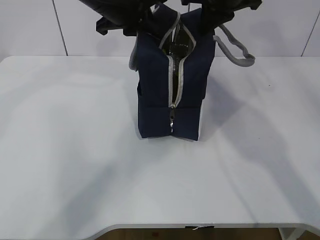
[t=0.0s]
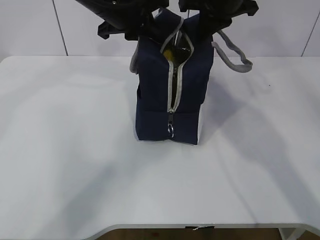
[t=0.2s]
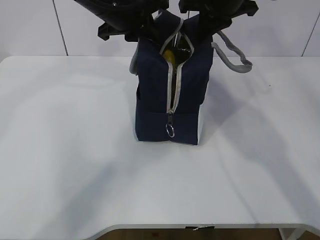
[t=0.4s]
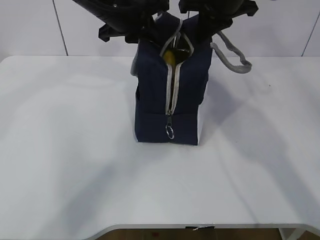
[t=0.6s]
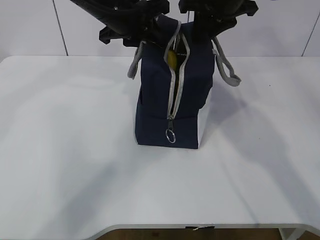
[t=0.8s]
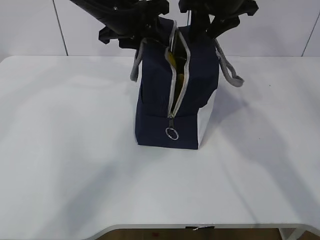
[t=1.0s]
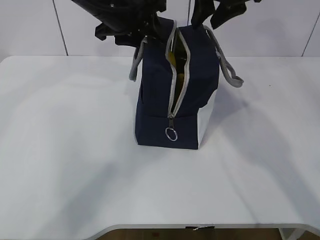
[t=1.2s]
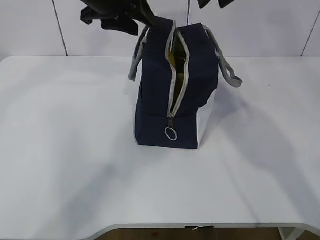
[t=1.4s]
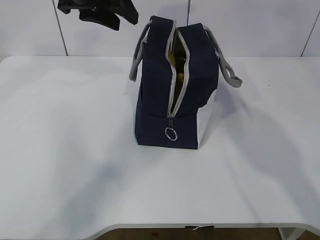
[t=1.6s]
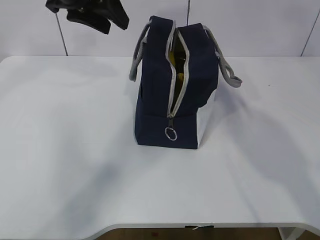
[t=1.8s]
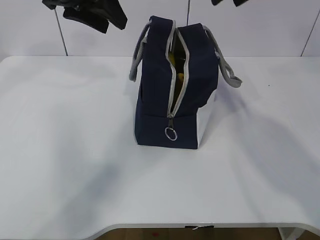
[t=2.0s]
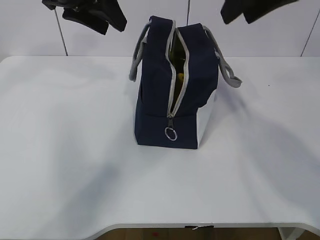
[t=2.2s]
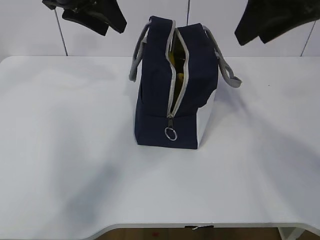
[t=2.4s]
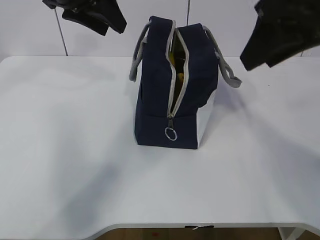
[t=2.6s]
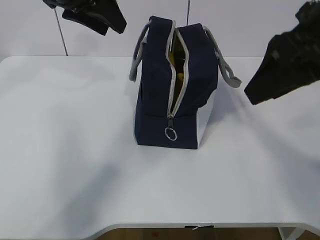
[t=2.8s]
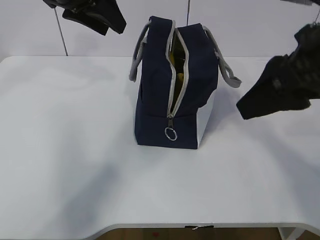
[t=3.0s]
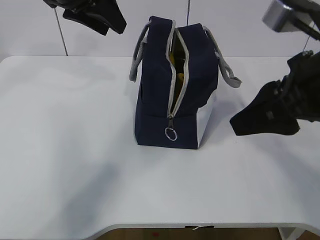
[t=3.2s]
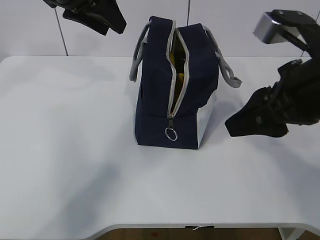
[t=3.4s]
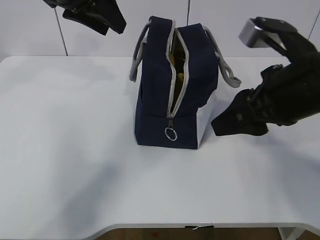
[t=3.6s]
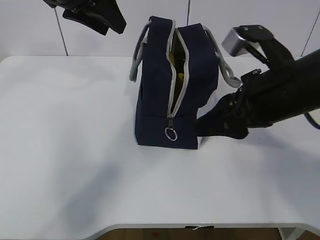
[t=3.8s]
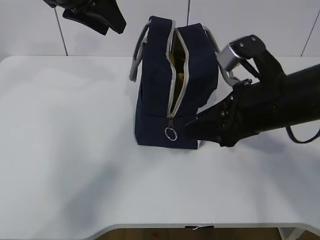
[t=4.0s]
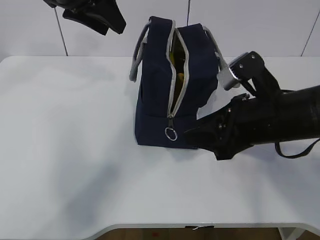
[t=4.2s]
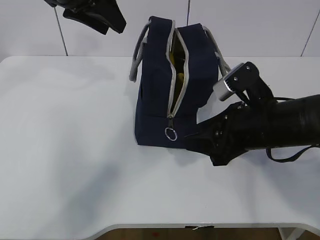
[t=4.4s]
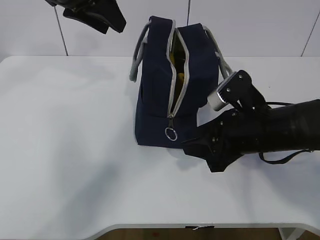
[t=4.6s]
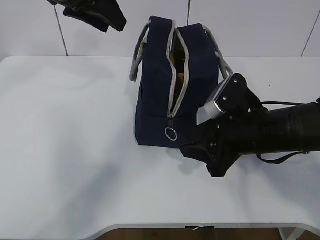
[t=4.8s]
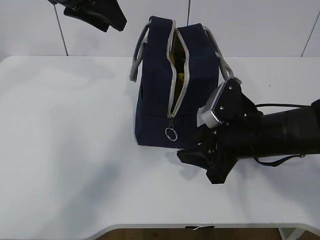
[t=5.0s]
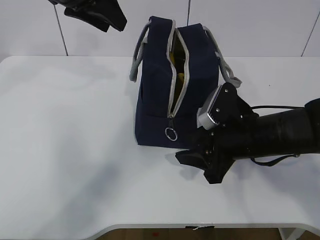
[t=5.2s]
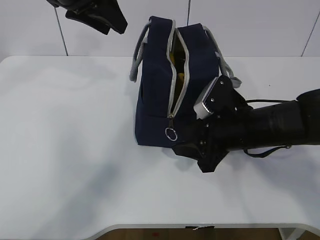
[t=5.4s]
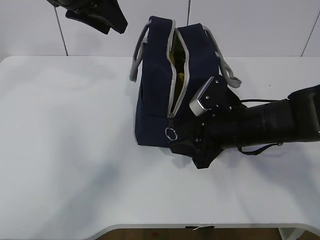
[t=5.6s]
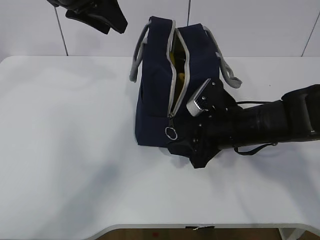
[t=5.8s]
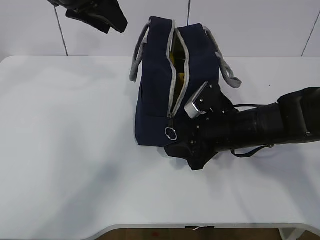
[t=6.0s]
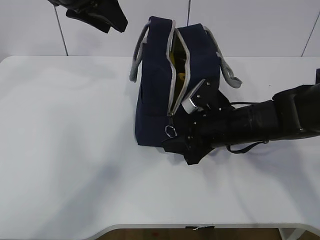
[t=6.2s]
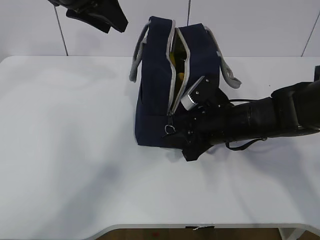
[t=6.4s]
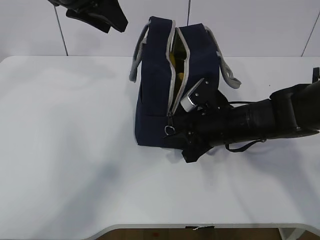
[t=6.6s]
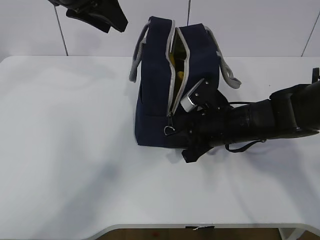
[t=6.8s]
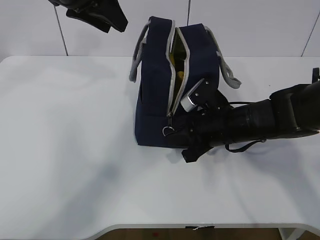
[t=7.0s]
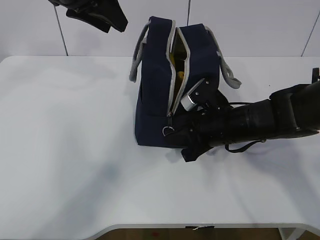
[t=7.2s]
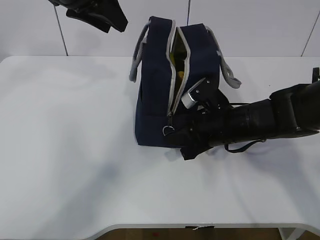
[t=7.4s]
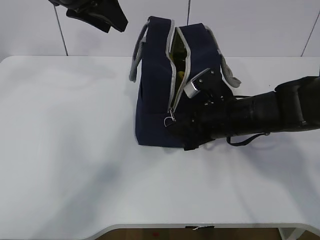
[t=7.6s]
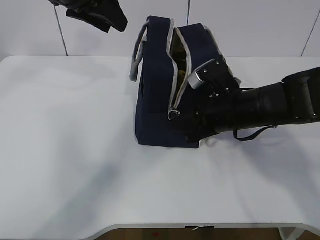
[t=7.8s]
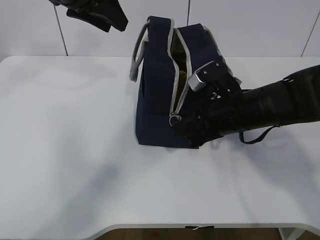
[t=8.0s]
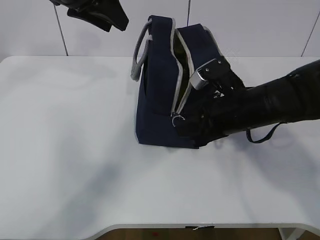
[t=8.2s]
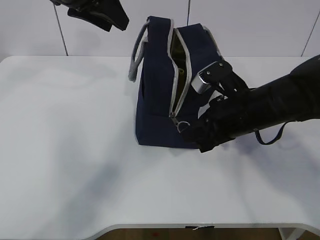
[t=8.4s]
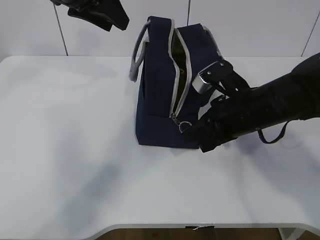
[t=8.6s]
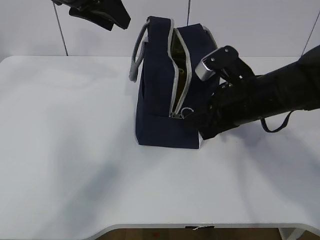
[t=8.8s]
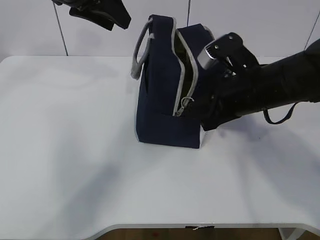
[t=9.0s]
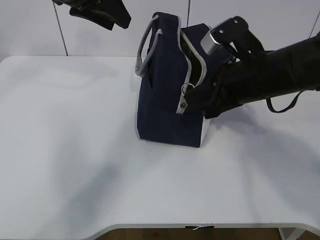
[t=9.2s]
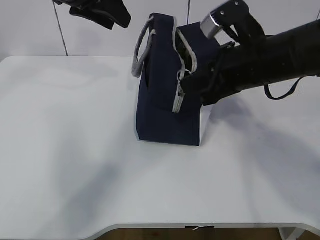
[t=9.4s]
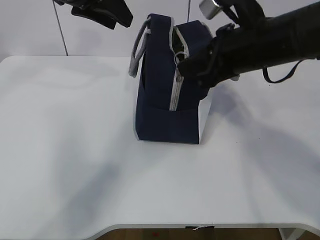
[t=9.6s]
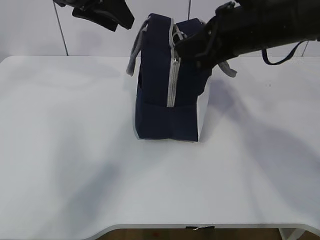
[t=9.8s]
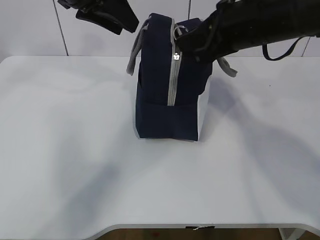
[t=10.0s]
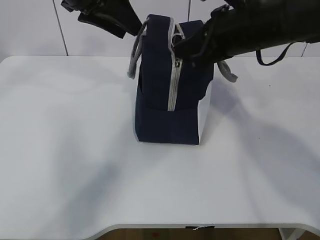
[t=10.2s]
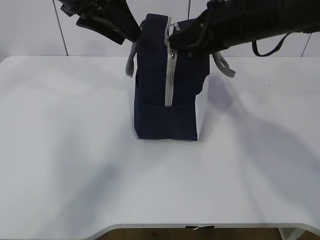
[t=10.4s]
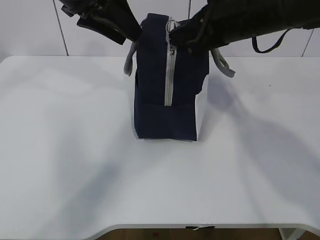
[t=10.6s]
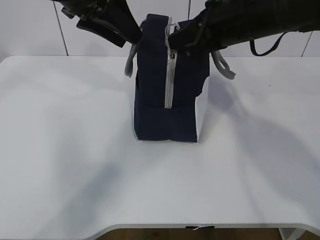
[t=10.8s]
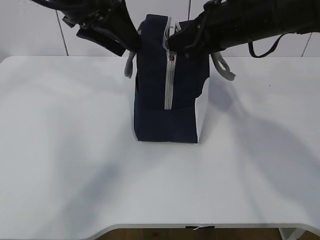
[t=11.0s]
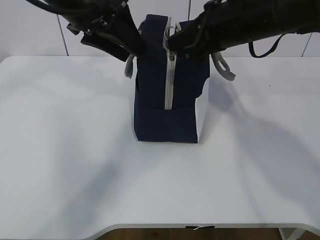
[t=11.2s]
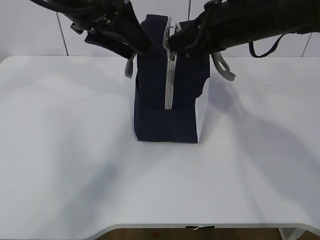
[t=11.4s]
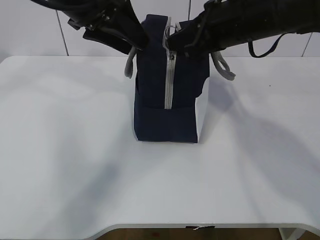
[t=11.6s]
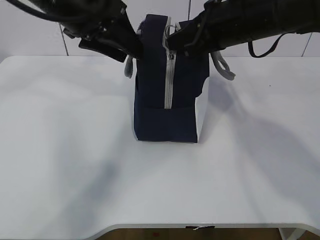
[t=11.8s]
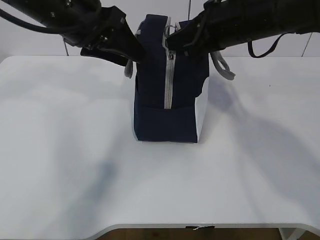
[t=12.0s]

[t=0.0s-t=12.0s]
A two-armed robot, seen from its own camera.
t=0.0s to t=1.6s: The right gripper heads upward, covering approximately 5 cm, and opens up; the left gripper ends up about 5 cm from where it was, and opens its fingers.
t=1.6s to t=3.0s: The right gripper shifts approximately 20 cm backward and downward.
t=3.0s to t=4.4s: The right gripper shifts about 15 cm downward.
t=4.4s to t=6.0s: The right gripper goes roughly 10 cm downward and forward.
t=6.0s to t=7.6s: The right gripper closes its fingers.
t=7.6s to t=9.0s: The right gripper is displaced upward by about 5 cm.
t=9.0s to t=10.4s: The right gripper is displaced upward by some 10 cm.
t=10.4s to t=12.0s: The grippers make only small movements.

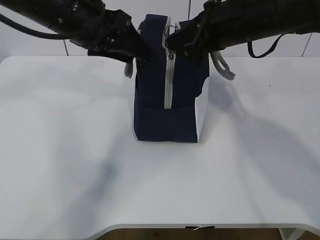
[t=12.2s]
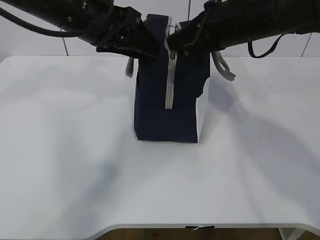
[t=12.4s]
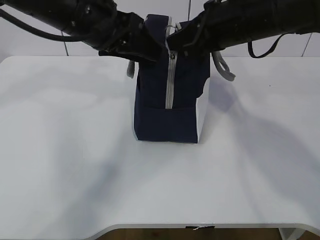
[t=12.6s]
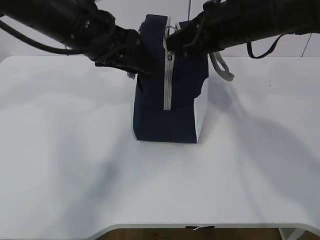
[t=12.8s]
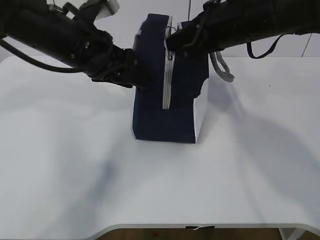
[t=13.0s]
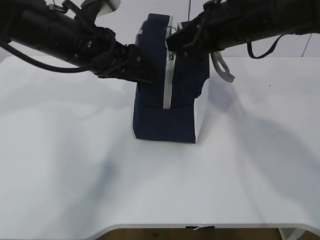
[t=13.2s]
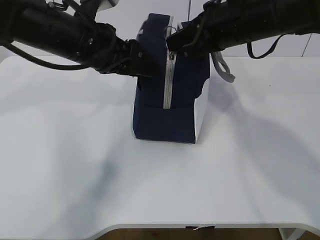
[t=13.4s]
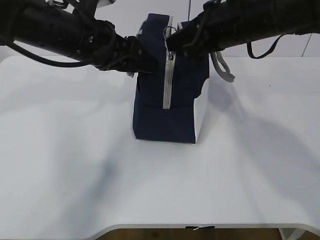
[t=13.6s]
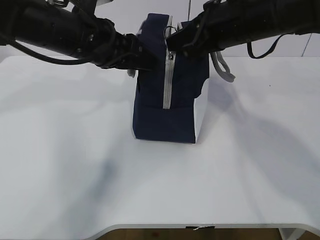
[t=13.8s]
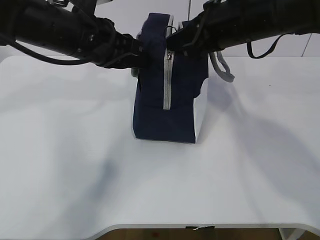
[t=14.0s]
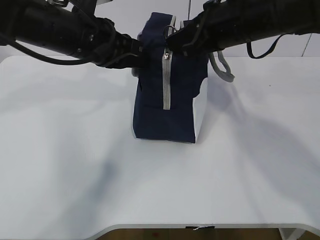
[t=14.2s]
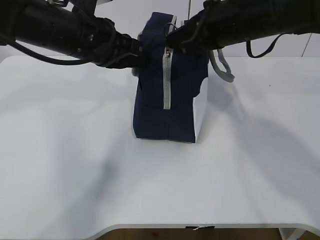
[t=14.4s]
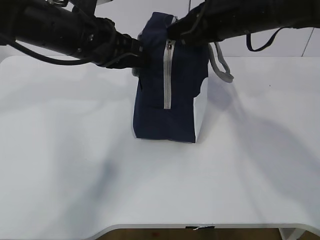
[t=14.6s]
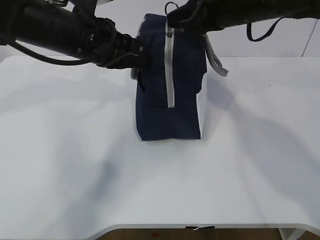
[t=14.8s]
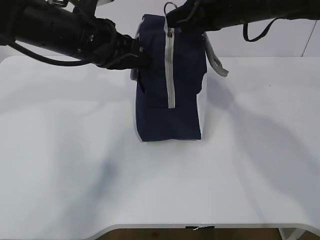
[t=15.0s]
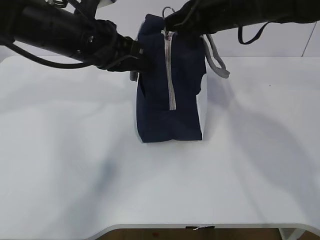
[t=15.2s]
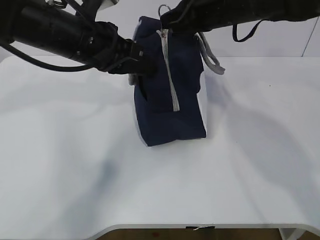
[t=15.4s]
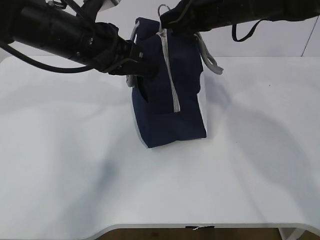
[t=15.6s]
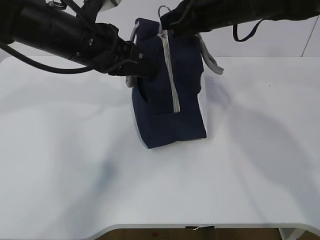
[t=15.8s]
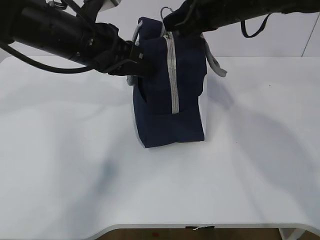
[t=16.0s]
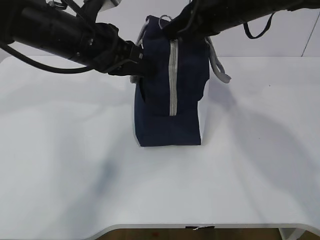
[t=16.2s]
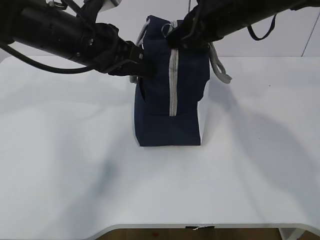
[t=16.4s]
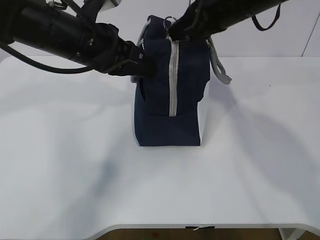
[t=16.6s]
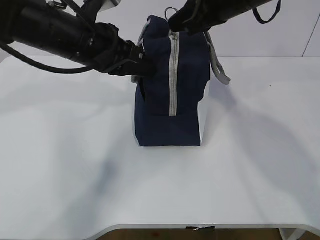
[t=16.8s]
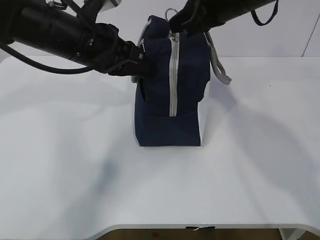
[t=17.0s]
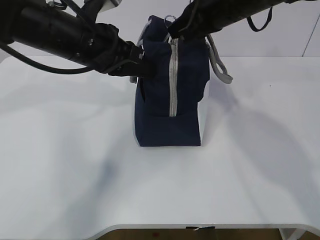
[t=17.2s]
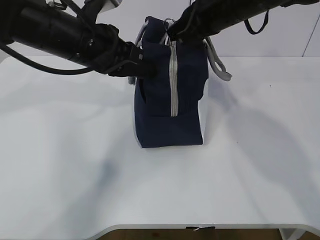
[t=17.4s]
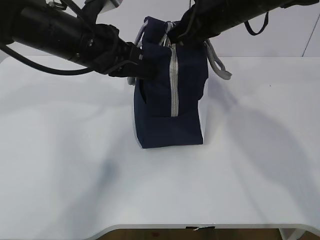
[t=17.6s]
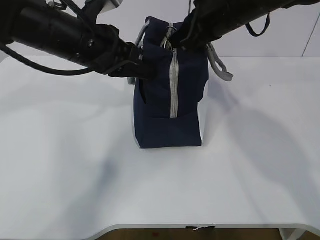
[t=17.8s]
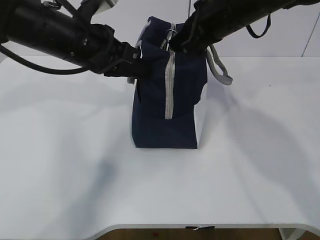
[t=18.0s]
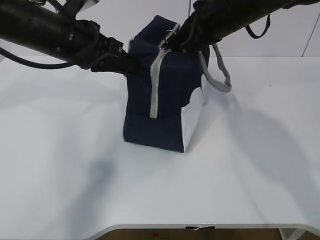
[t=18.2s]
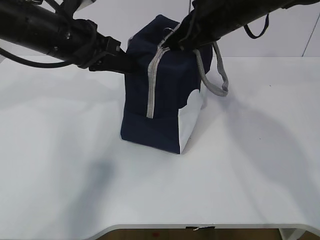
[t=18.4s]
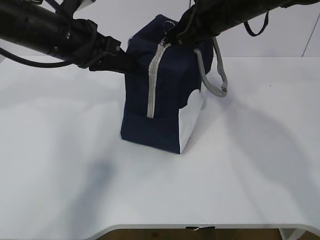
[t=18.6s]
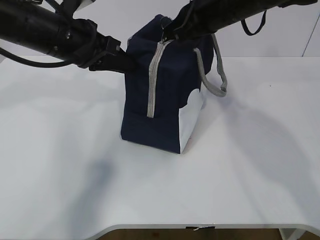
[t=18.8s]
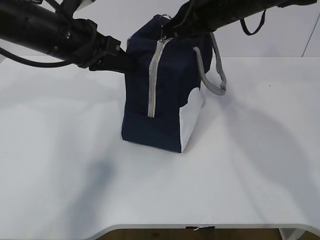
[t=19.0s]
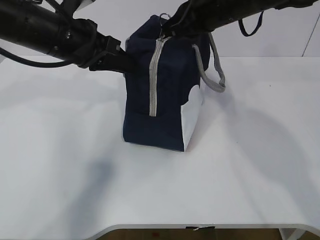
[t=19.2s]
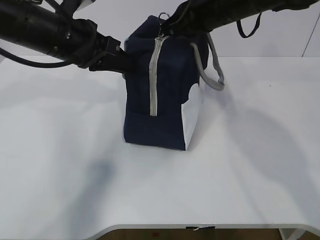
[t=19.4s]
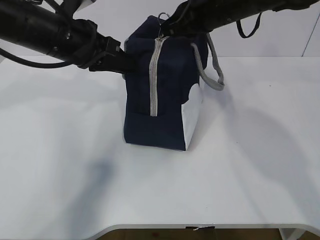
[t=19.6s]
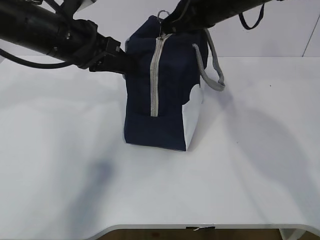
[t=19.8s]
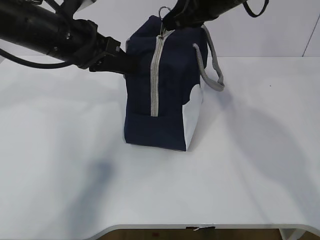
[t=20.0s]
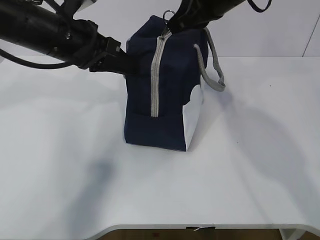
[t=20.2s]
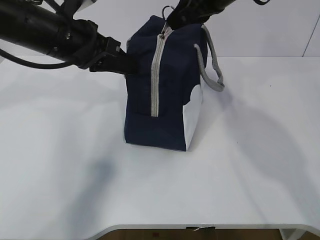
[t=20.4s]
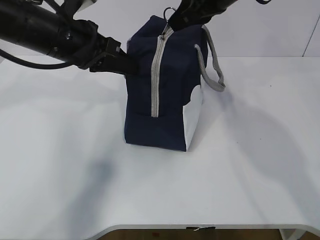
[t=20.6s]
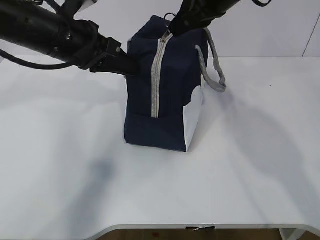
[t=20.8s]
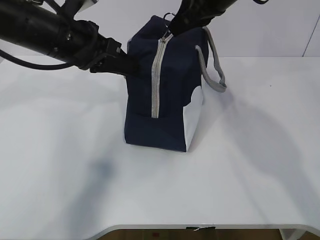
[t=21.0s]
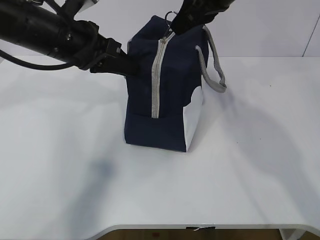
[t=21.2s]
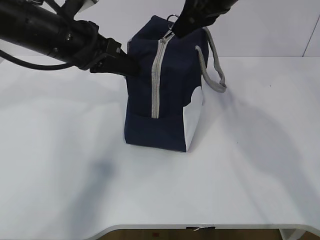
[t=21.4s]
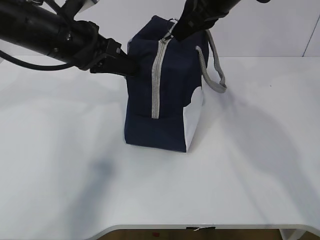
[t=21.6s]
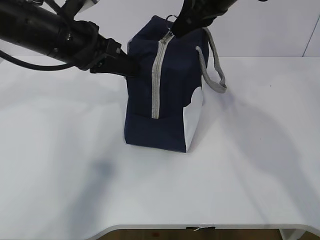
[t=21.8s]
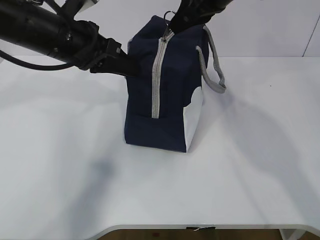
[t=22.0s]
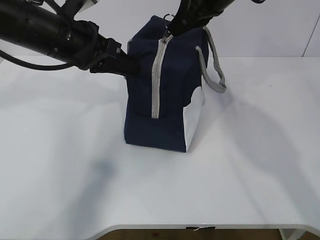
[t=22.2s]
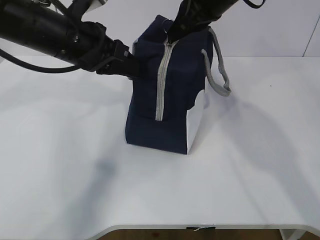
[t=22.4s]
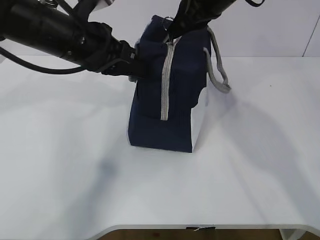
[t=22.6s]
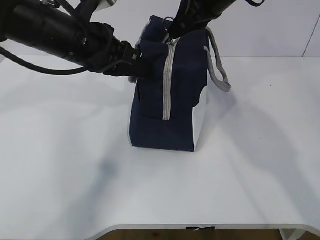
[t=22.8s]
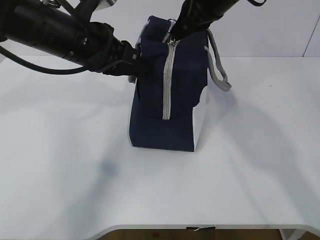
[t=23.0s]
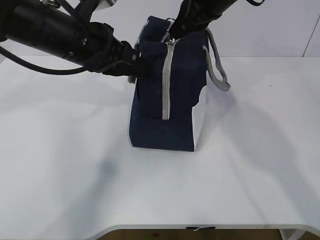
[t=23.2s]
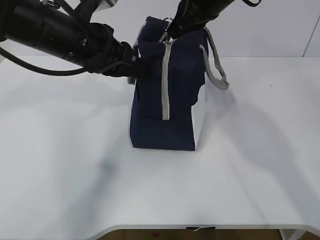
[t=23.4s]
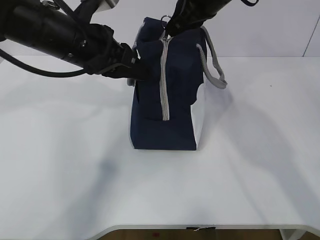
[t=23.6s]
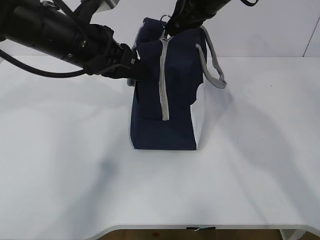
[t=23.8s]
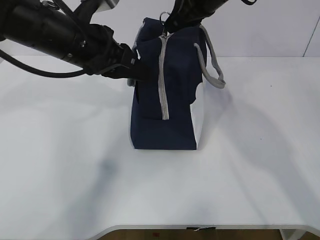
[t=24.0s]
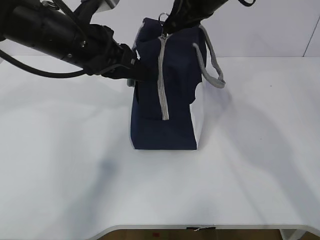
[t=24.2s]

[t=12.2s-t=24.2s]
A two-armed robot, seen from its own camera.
t=12.2s to t=13.8s: There are only small adjustments of the grippers.
t=13.8s to t=15.2s: The left gripper closes up.
t=15.2s to t=19.8s: There are only small adjustments of the grippers.
t=19.8s to t=24.2s: The grippers make only small movements.
